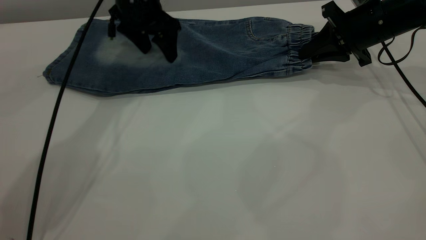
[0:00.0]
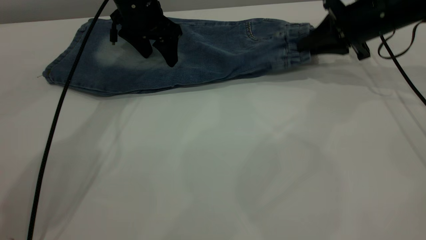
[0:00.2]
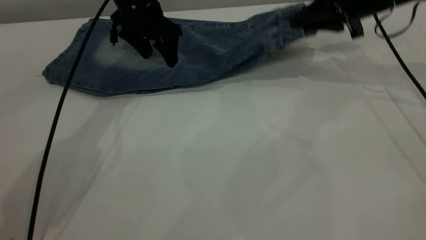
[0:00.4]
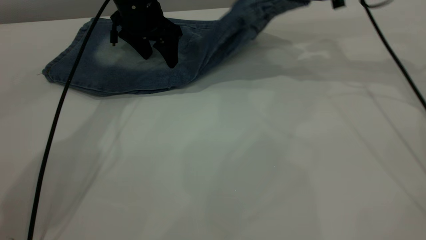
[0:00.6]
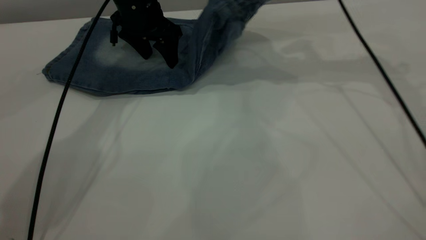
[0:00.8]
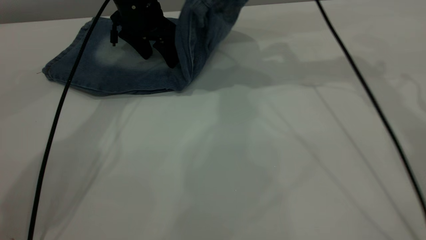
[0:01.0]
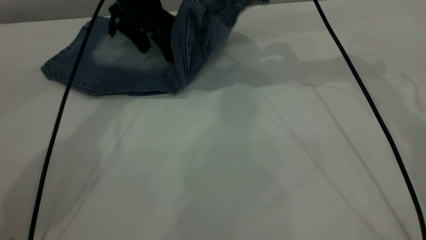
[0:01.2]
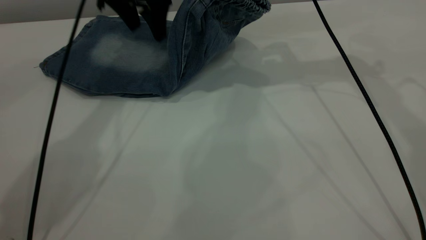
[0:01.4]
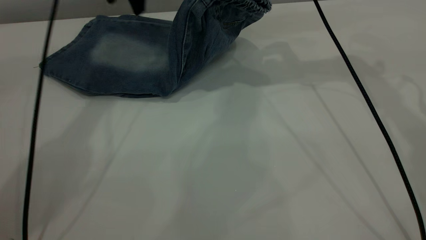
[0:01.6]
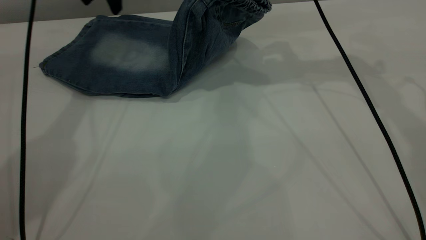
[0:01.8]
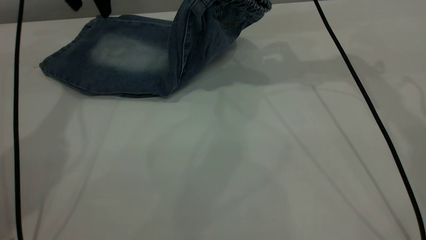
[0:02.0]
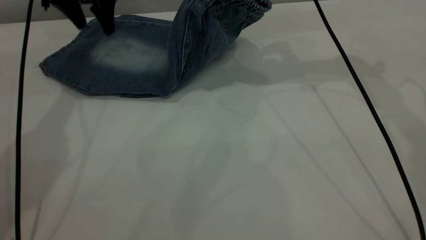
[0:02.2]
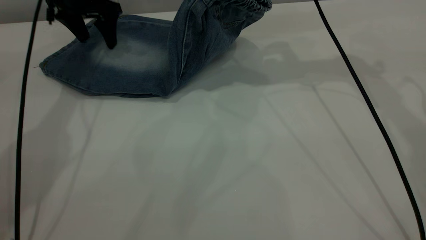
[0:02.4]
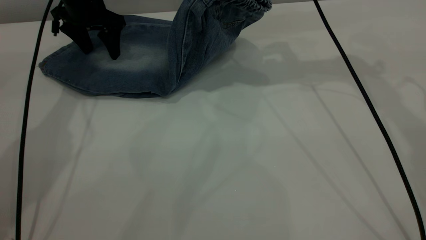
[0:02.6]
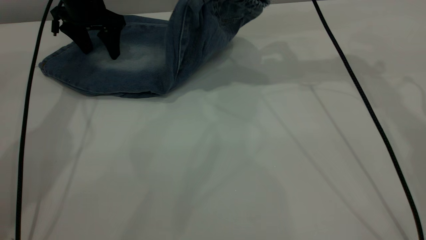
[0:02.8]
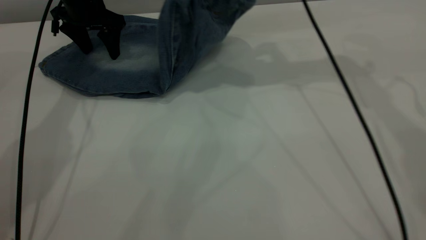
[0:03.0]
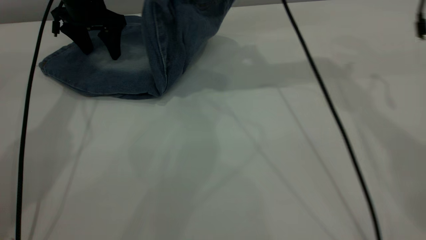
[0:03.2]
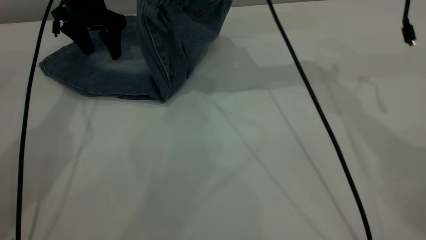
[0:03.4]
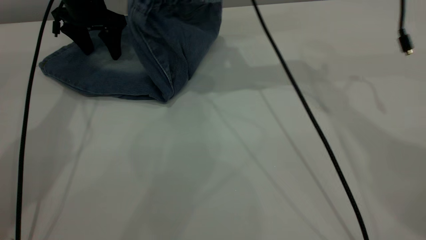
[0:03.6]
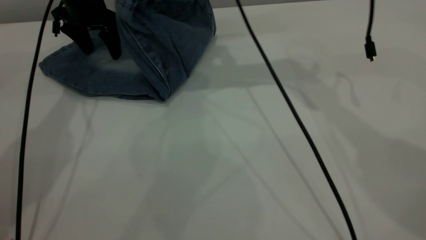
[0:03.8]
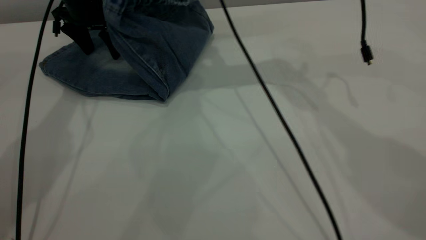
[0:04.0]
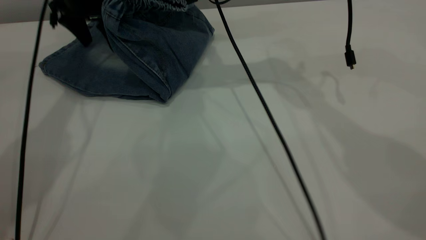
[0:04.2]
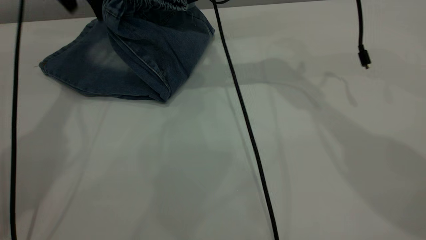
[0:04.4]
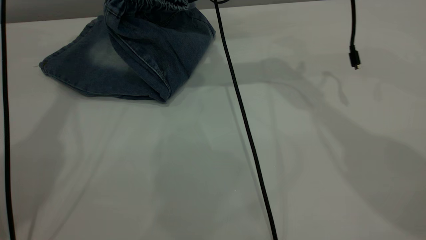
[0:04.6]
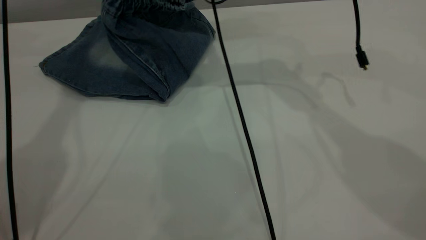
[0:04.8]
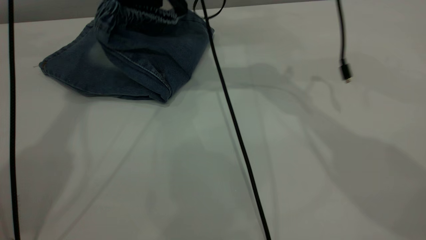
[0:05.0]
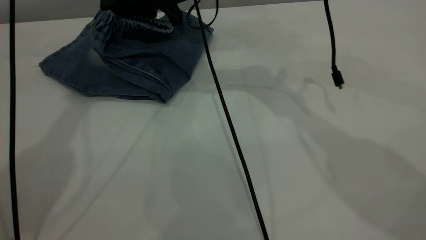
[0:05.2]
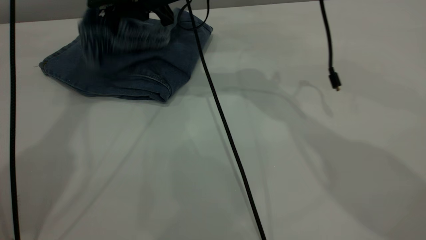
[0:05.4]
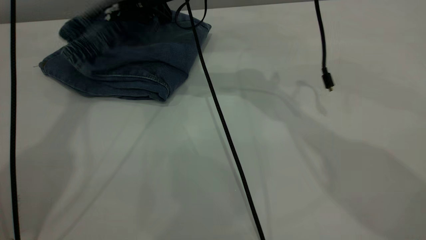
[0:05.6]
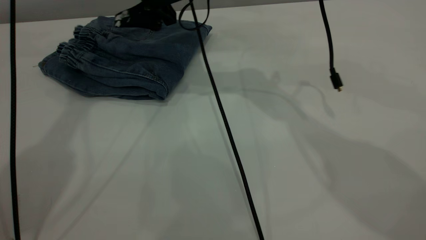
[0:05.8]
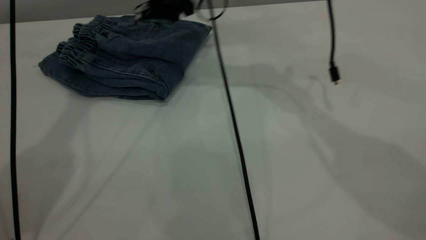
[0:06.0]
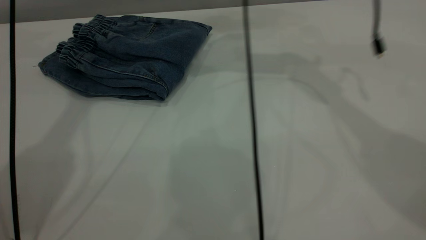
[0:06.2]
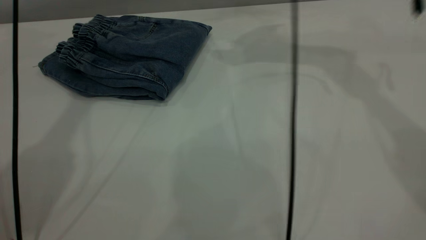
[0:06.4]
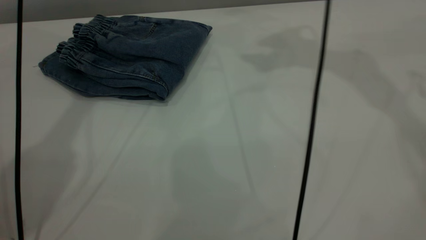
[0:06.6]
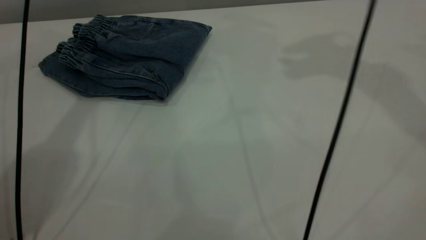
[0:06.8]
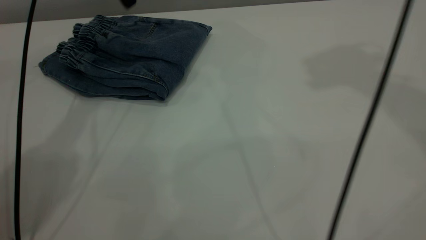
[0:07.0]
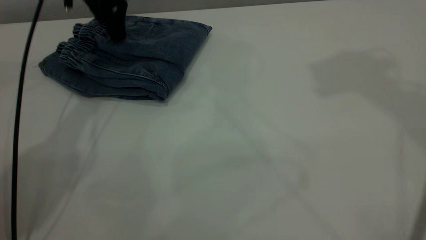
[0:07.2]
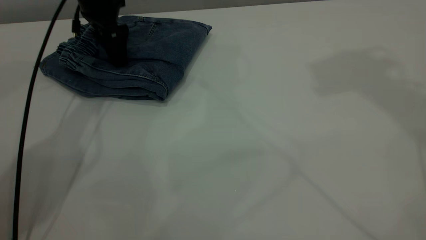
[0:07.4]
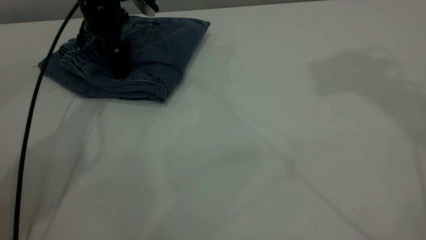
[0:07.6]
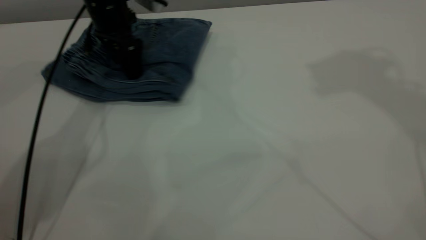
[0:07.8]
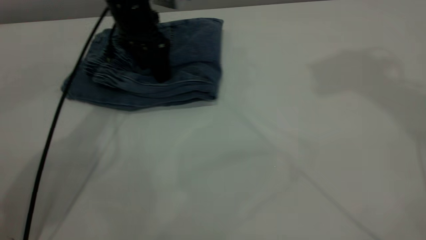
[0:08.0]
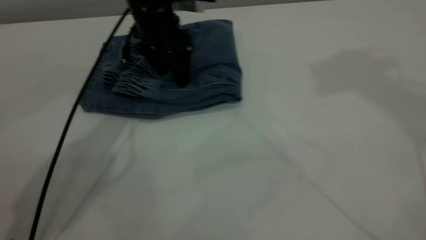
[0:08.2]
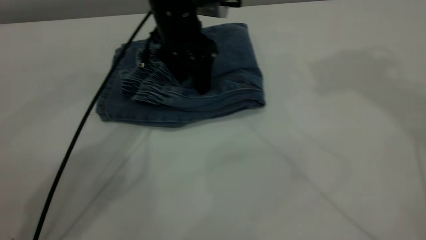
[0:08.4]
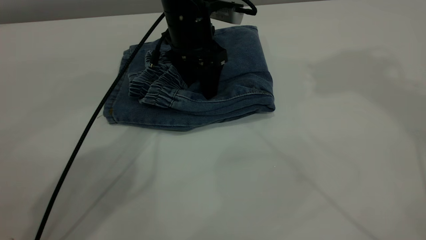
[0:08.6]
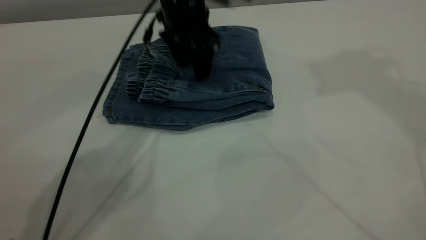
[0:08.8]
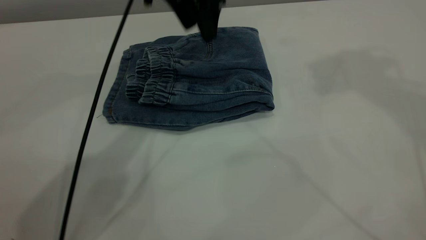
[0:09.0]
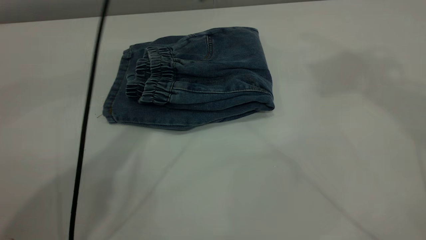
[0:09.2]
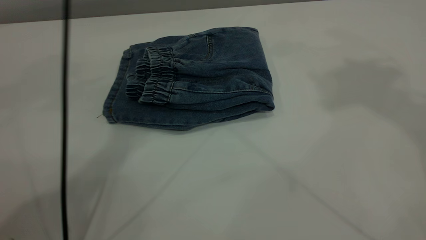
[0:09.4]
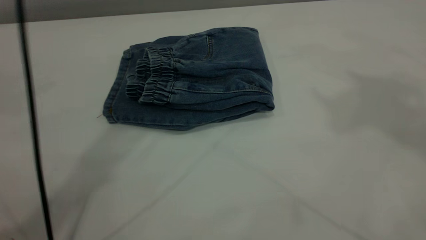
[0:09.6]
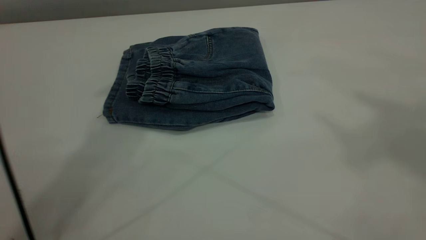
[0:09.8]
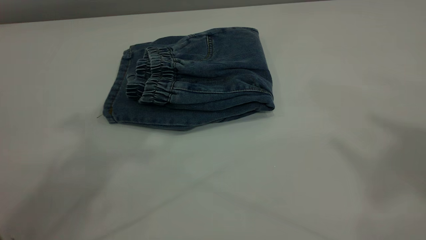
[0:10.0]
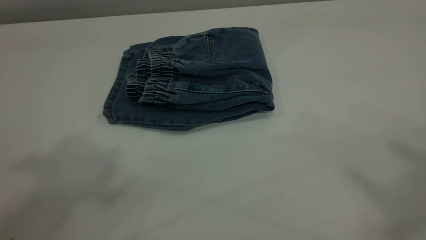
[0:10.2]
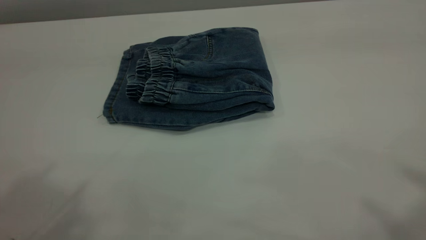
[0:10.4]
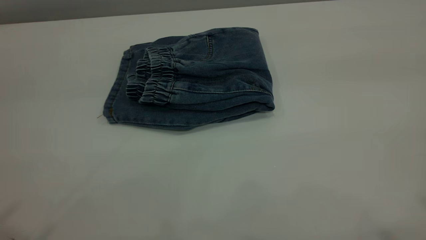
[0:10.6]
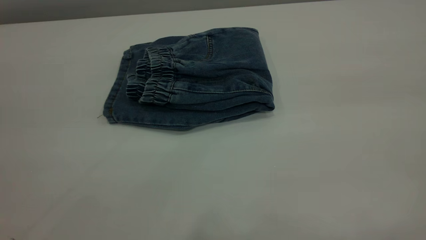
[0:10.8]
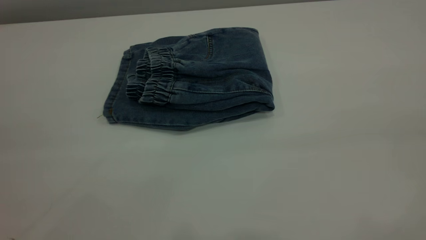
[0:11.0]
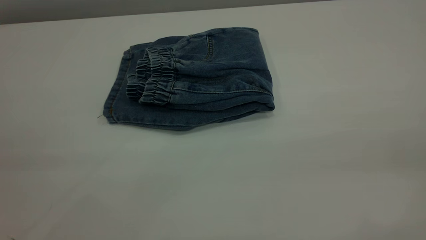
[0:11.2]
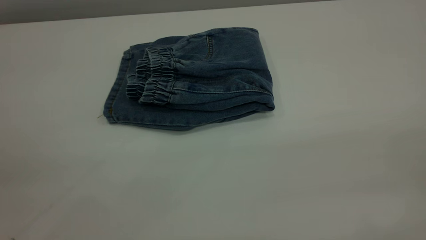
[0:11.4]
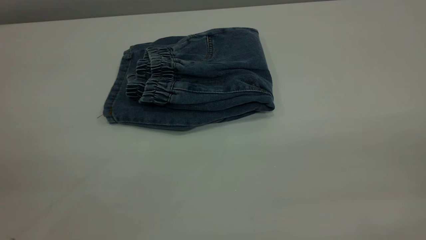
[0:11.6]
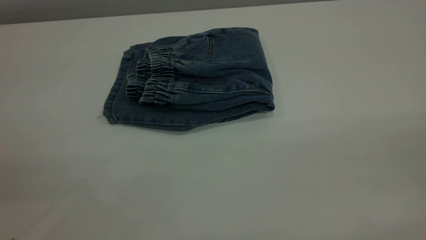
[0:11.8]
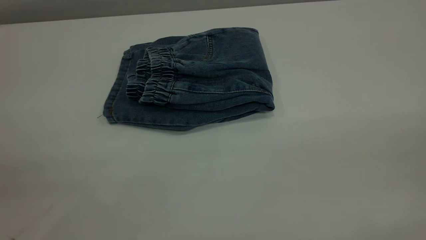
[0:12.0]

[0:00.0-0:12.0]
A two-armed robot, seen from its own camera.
Step, 0:00.0 to 0:06.0: Fold your pants from right to left.
0:00.0 to 0:01.6: The right gripper shifts about 20 cm upward and to the left. The left gripper goes roughly 10 cm upward.
0:01.6 to 0:03.0: The left gripper goes roughly 10 cm downward and to the left.
0:03.0 to 0:04.4: The left gripper heads upward, covering approximately 10 cm. The right gripper shifts roughly 10 cm to the left.
0:04.4 to 0:06.0: The right gripper opens up. Meanwhile the left gripper travels upward and to the right by some 15 cm.
0:06.0 to 0:07.6: The right gripper shifts some 40 cm upward and to the right. The left gripper shifts some 25 cm downward.
0:07.6 to 0:09.0: The left gripper travels to the right and upward by about 15 cm.
0:09.0 to 0:10.4: The right gripper is displaced backward by roughly 25 cm. The left gripper travels backward, upward and to the left by approximately 50 cm.

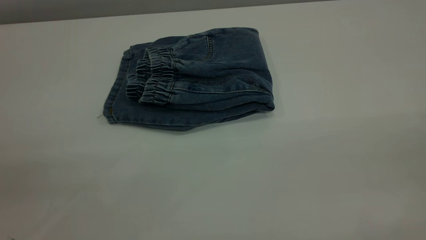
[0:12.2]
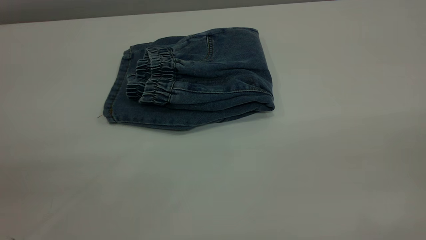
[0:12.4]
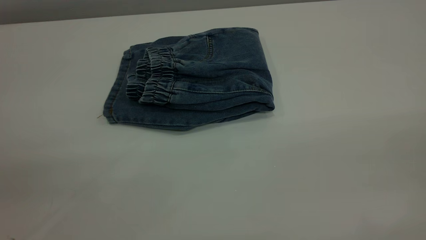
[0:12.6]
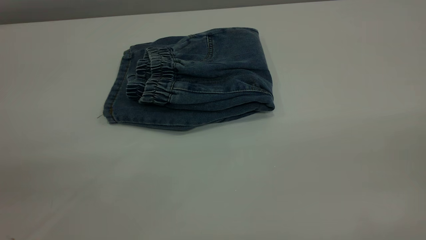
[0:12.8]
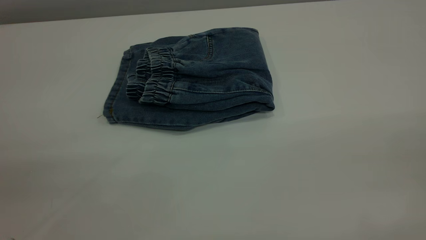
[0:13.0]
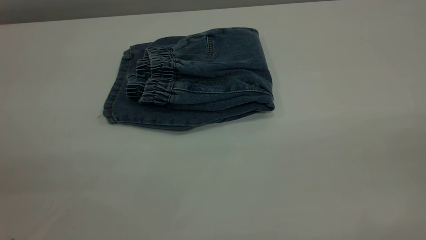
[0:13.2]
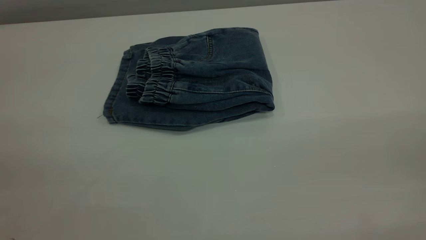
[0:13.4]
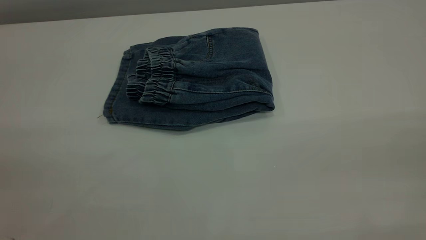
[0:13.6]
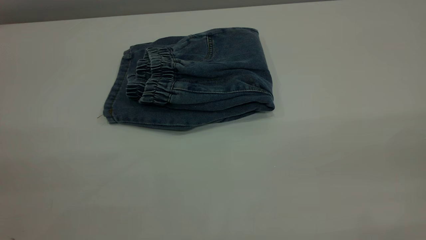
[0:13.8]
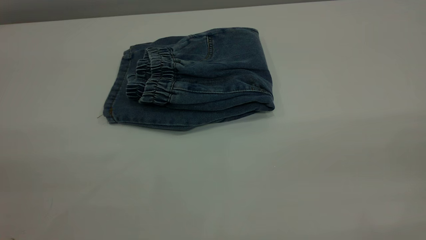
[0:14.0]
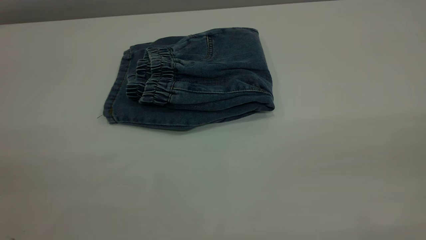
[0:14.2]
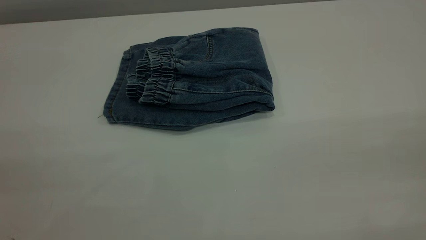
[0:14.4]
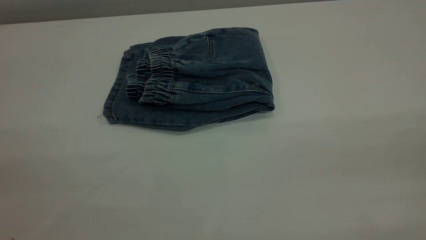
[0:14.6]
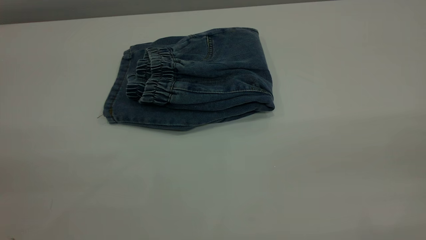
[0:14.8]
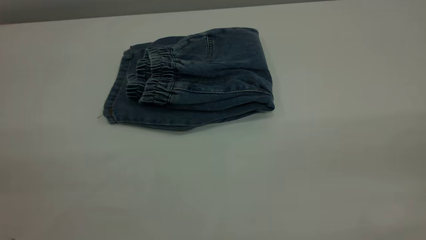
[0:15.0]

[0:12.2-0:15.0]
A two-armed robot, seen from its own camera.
0:13.6 to 0:15.0: Both grippers stay put.

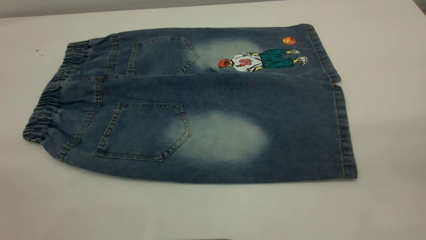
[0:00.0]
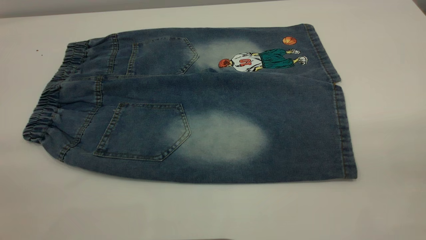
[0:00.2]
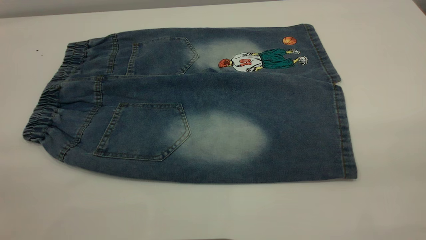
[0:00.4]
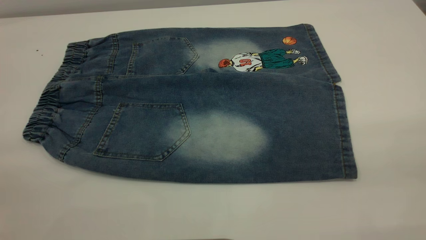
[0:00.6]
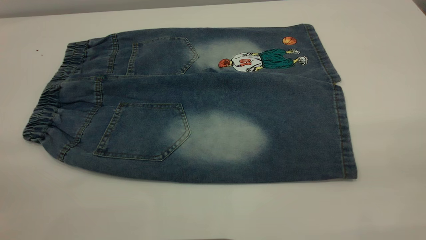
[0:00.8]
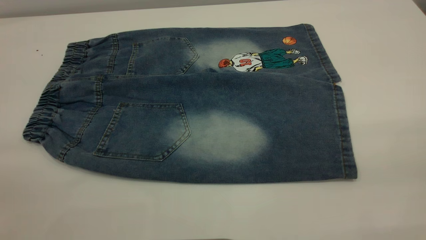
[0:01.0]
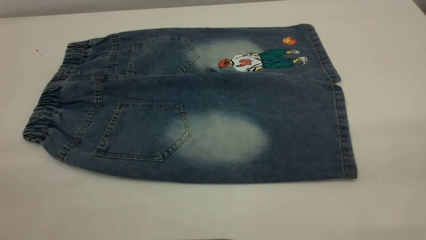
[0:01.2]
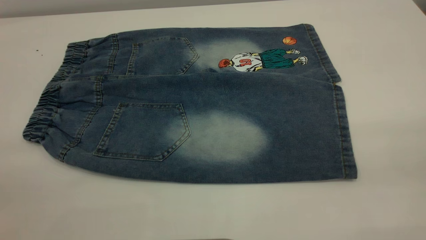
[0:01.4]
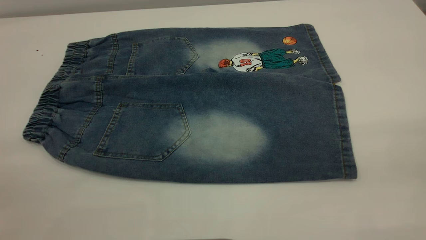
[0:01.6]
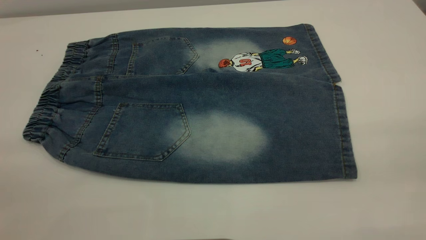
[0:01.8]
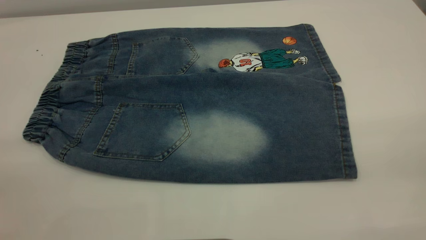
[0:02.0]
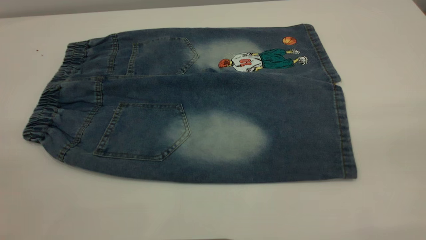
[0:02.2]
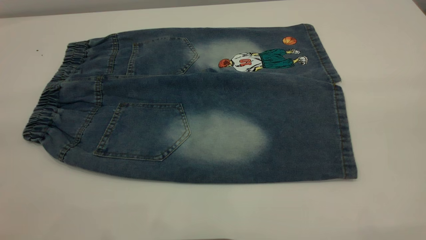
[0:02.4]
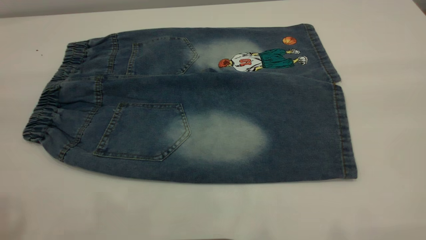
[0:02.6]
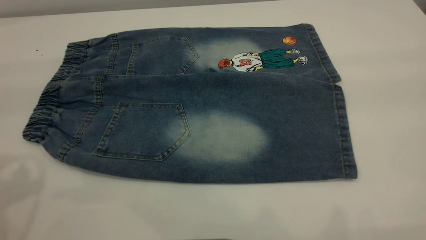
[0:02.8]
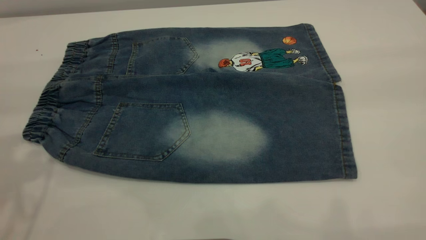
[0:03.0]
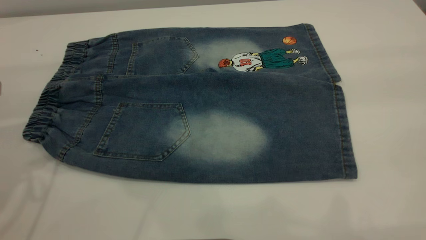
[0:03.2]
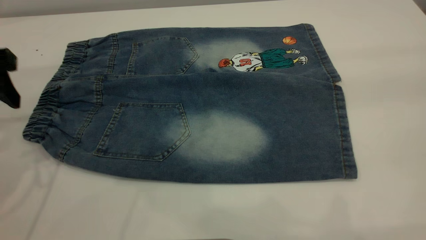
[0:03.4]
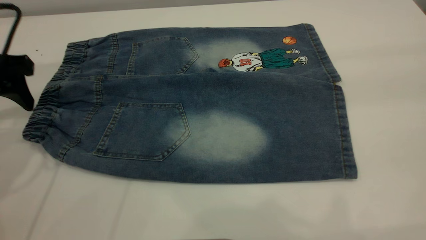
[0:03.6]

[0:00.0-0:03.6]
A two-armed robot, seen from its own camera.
0:00.0 to 0:01.8: Both grippers stay about where they are.
0:01.8 to 0:03.6: The left gripper heads forward and downward, covering some 35 cm.
